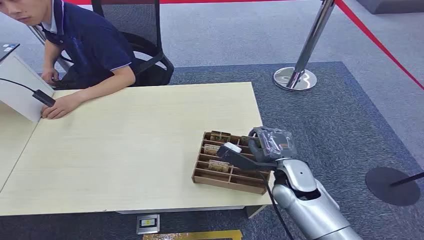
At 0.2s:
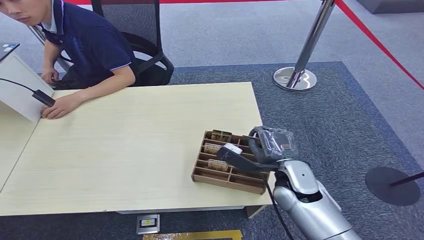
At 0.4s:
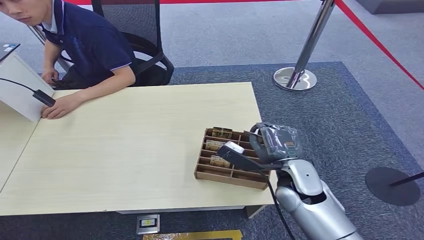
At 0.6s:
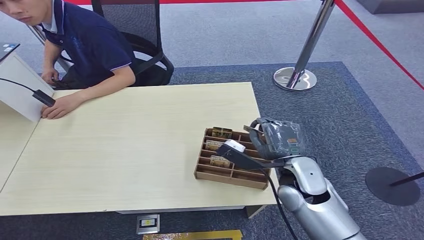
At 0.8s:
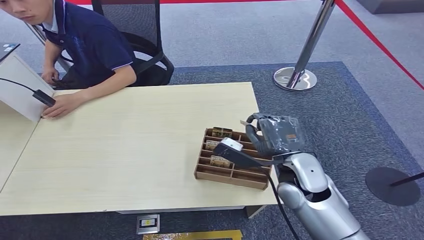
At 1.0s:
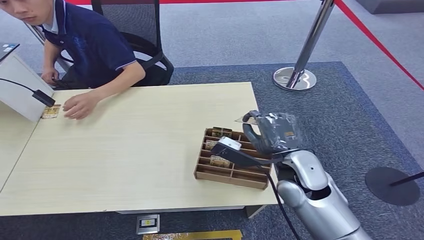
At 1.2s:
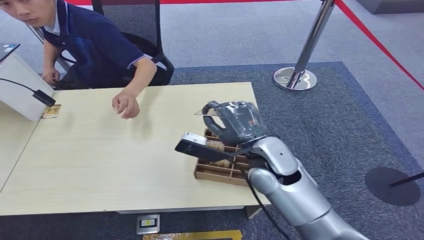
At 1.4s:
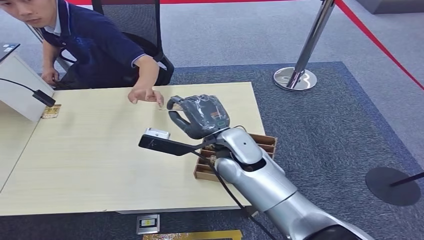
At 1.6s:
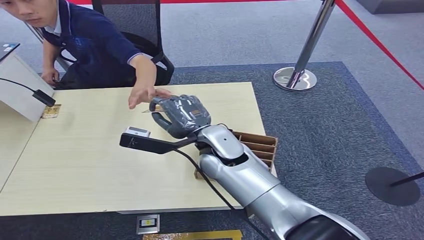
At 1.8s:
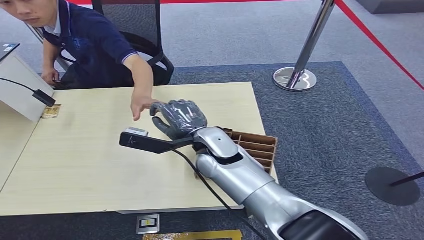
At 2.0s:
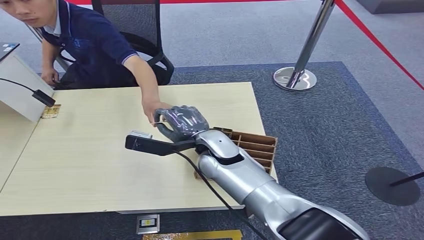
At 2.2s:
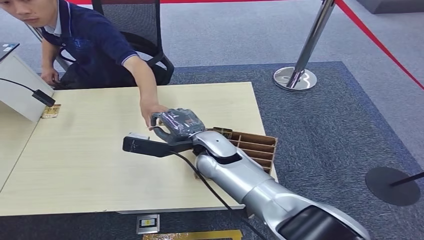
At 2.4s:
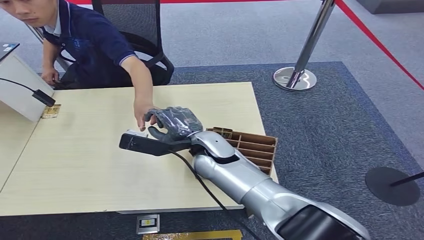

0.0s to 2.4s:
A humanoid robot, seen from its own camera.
Step, 0.0s to 1.0s: Pick up the key card from the card box.
Step, 1.2s to 2.4s: Hand the key card to the target.
1.2s to 2.4s: The right hand goes approximately 10 cm to the left.
